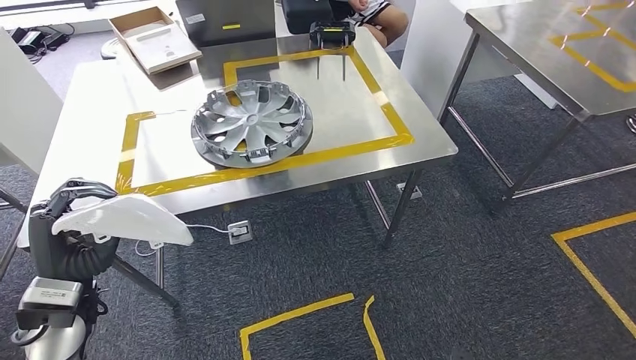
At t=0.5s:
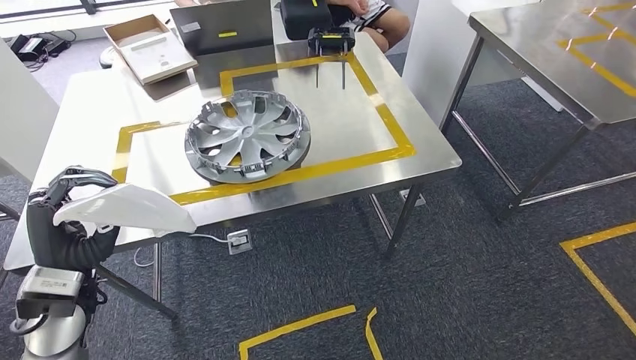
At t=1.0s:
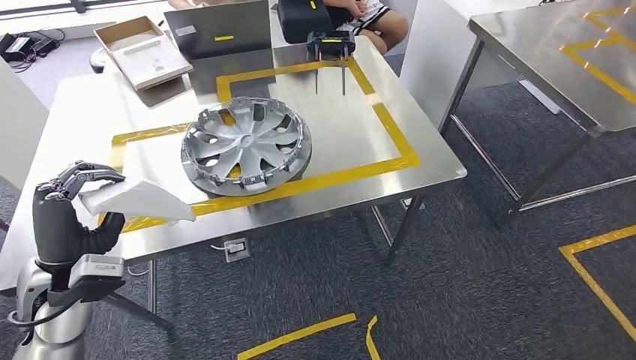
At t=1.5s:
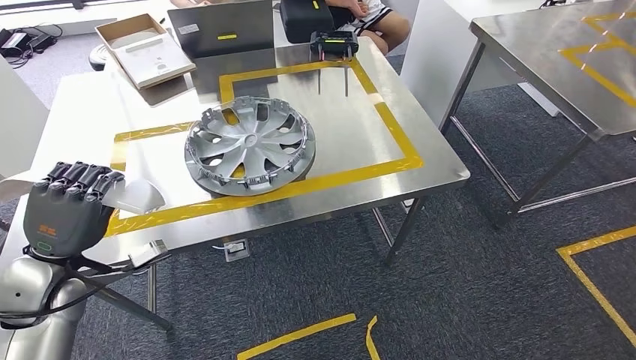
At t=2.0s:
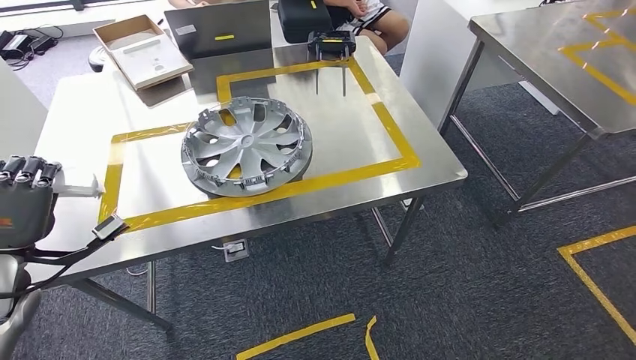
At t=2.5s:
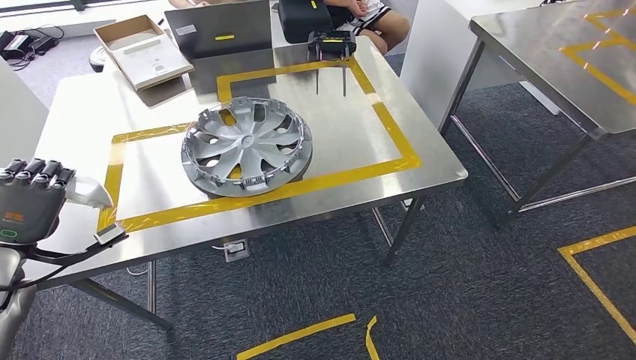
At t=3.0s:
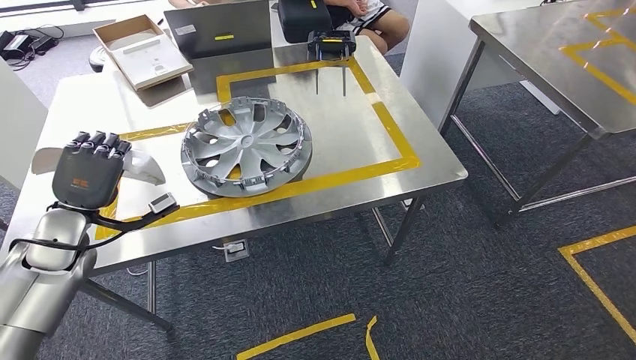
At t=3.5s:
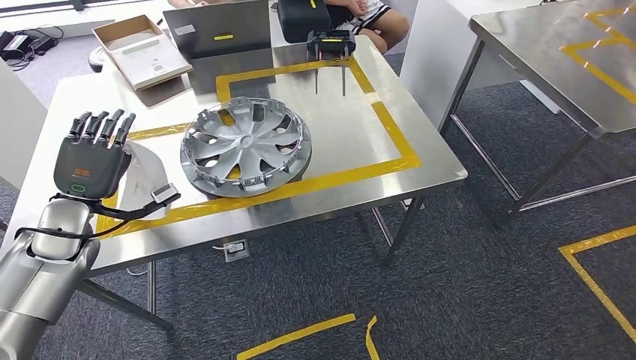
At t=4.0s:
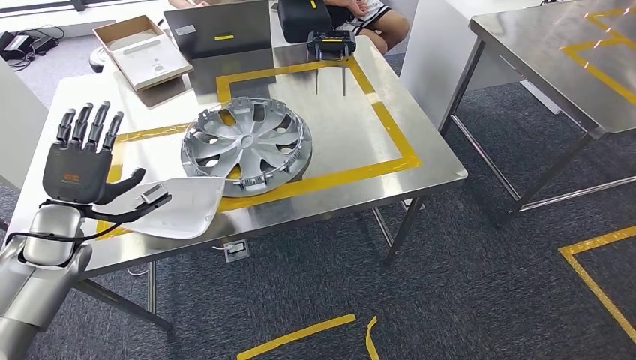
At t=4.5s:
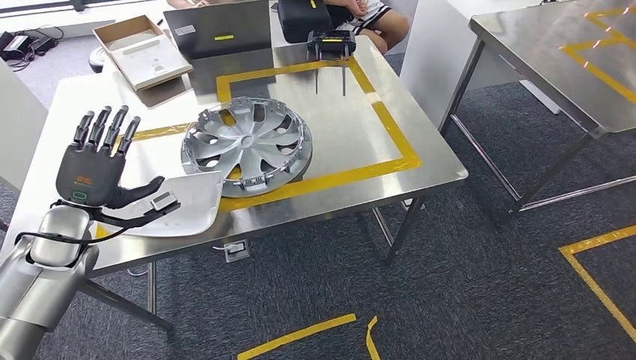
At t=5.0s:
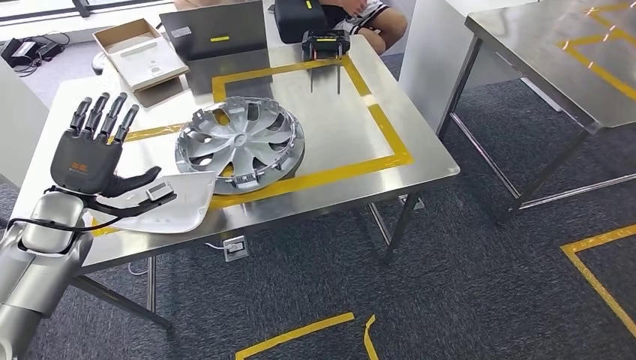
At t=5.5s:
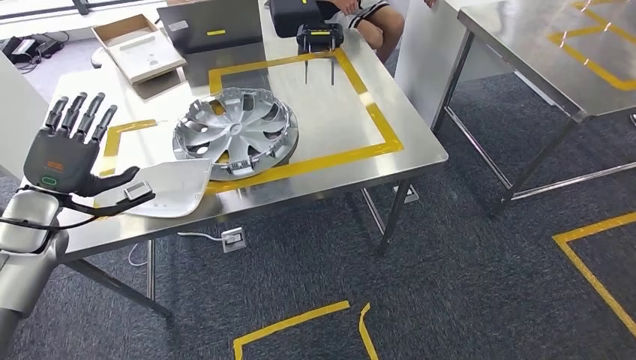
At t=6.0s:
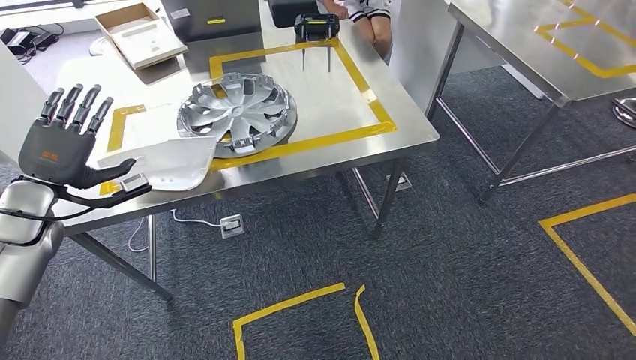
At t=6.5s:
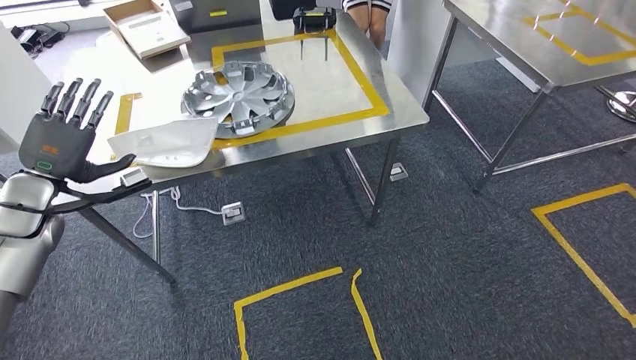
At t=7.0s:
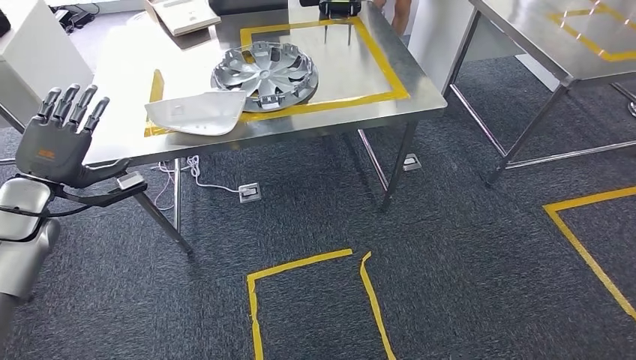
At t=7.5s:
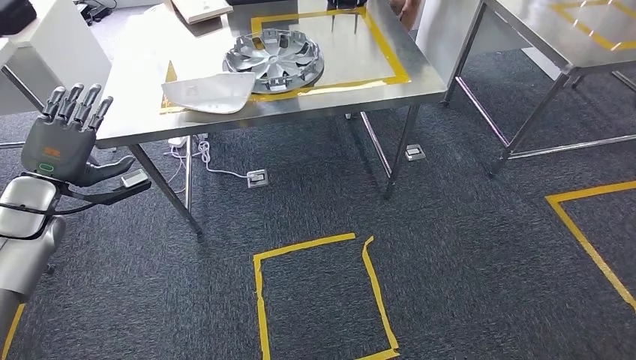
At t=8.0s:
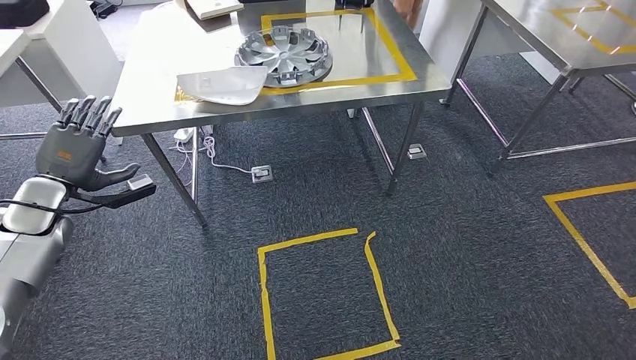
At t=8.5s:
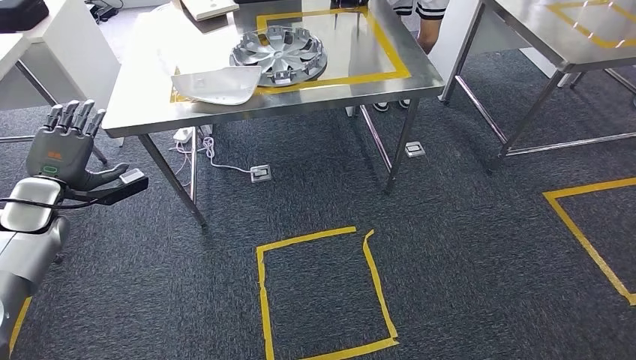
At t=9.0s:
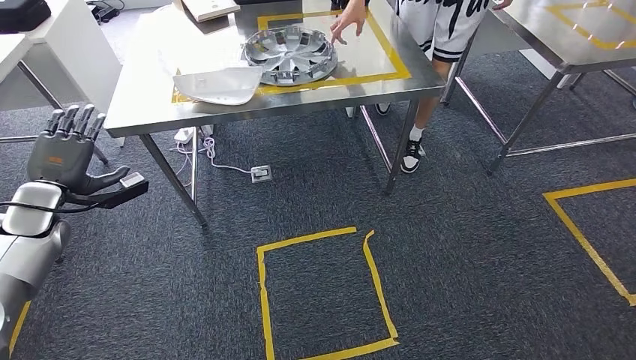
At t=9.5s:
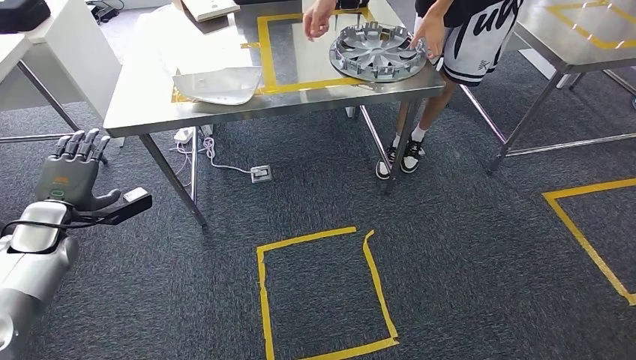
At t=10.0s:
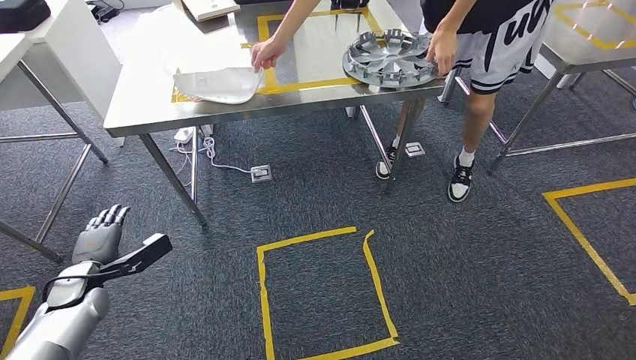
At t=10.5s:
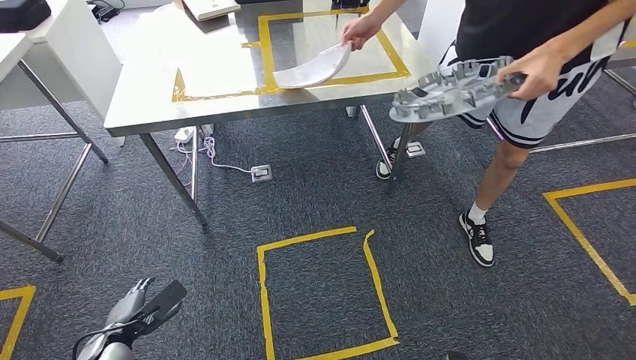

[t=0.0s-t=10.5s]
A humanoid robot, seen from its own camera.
Step, t=0.0s to t=2.0s: Move the small parts to the workbench.
Step, t=2.5s to t=5.0s: Insert the small parts into the corresponding holes on the workbench.
Step, t=5.5s to t=10.5s: Move to the initial position of the workbench.
t=2.0s to t=4.0s: The left hand shifts about 10 cm forward and to the right, while the right hand heads to the right, covering approximately 5 cm.
